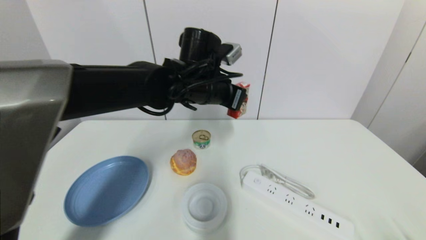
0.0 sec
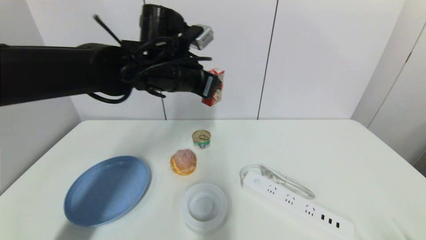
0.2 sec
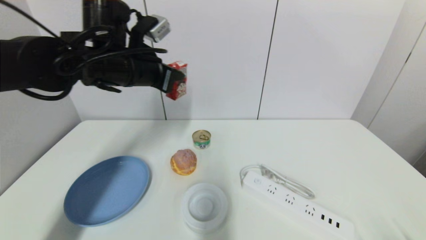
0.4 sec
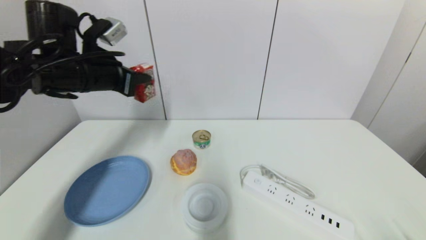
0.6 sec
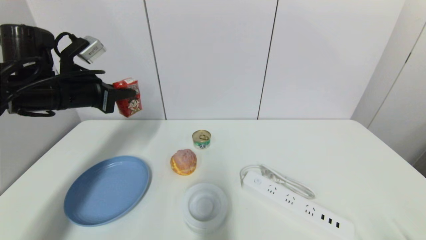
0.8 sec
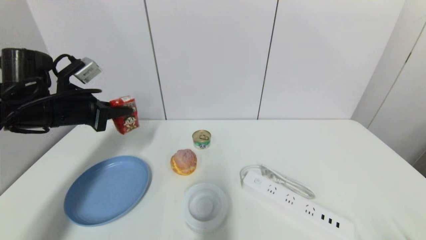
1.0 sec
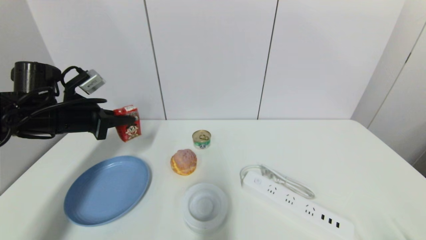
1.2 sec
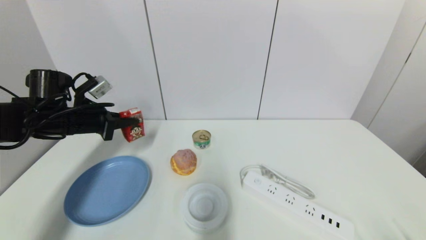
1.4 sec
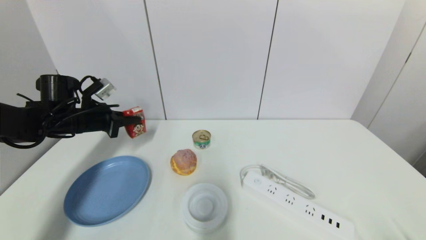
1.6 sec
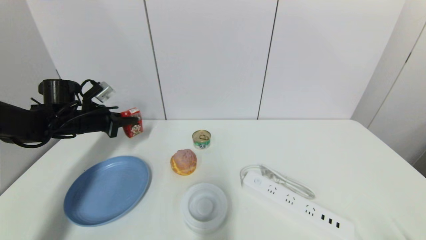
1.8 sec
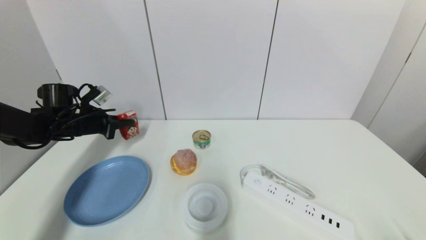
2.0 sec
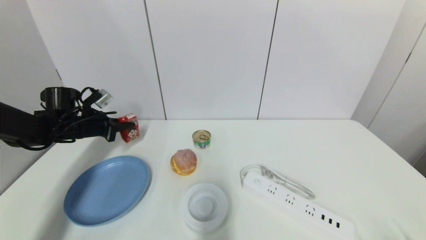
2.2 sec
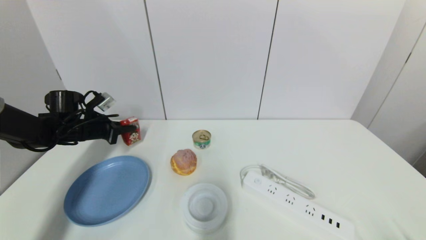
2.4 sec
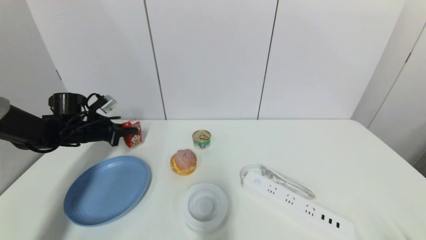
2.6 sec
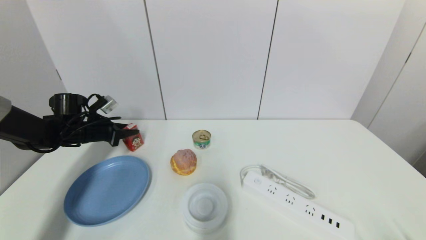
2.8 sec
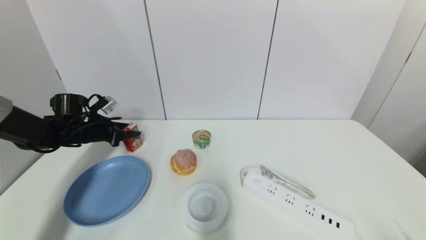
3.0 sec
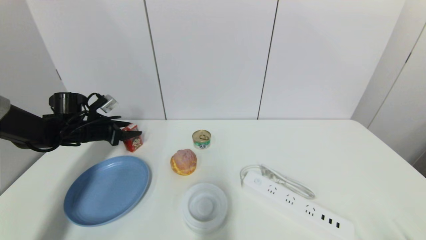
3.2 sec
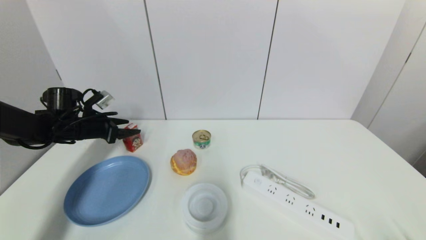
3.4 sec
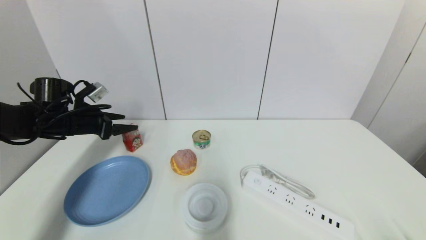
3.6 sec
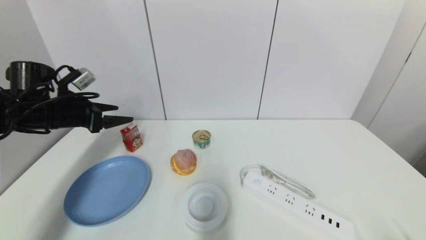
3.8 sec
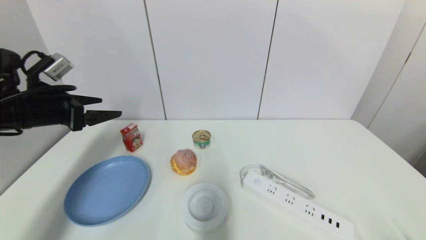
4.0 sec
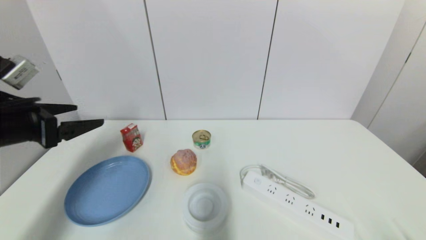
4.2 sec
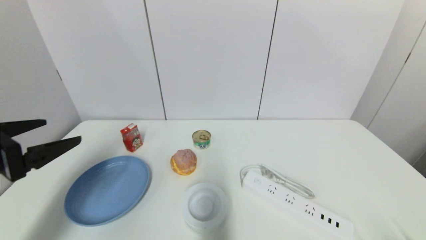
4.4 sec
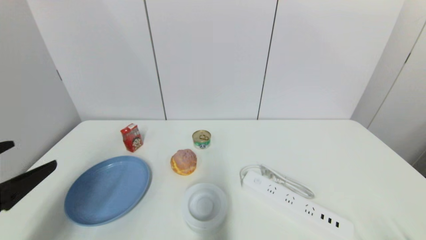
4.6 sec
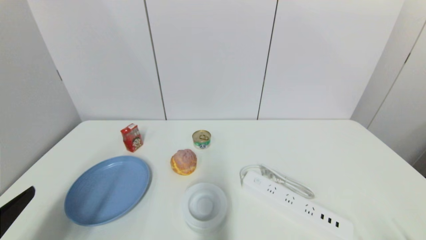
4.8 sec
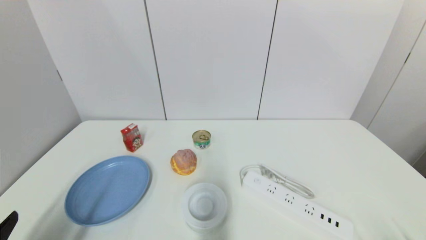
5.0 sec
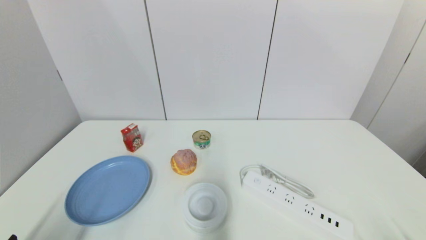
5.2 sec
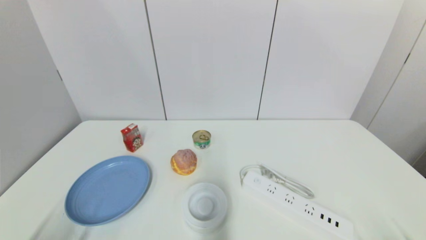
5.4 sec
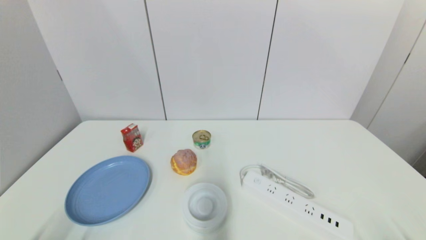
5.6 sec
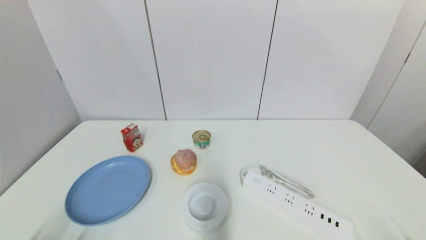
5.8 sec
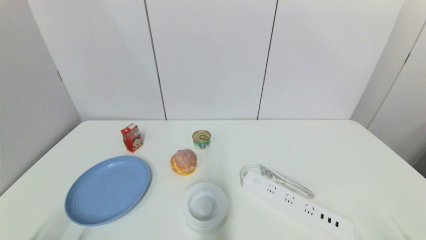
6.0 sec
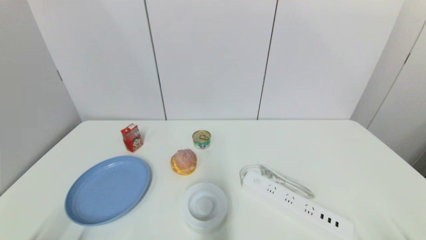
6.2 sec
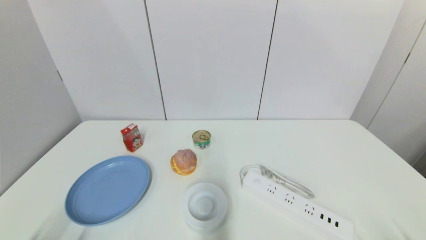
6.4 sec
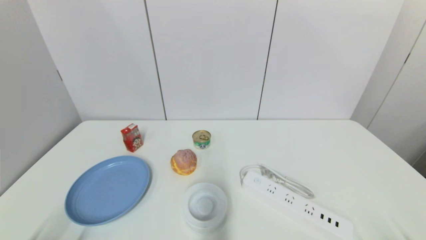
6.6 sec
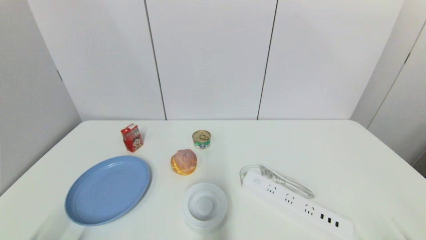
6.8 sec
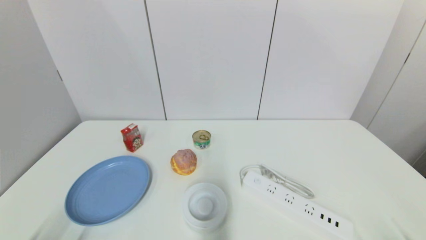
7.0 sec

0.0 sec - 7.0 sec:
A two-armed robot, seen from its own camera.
Step, 0.0 sec - 2.8 sec: Place the wangzai milk on the table with left gripper.
0.0 sec - 1.4 sec: The left gripper moves to the left, roughly 25 cm.
1.4 sec - 2.8 sec: The left gripper is displaced downward and forward by about 10 cm.
2.8 sec - 4.2 sec: The left gripper goes roughly 25 cm backward and upward, and opens its fingers.
4.2 sec - 5.6 sec: The left gripper heads backward and downward, covering roughly 30 cm.

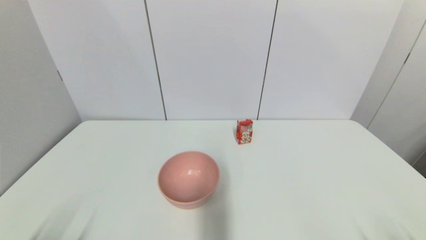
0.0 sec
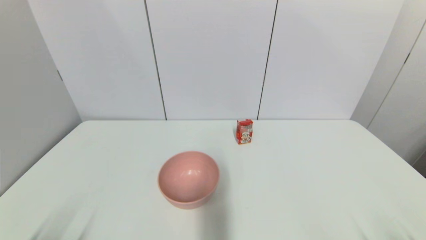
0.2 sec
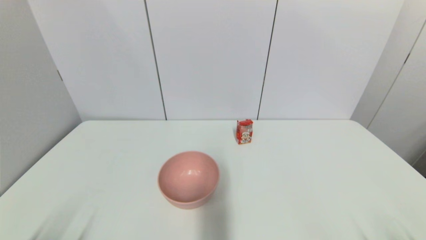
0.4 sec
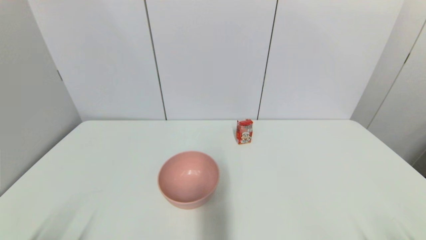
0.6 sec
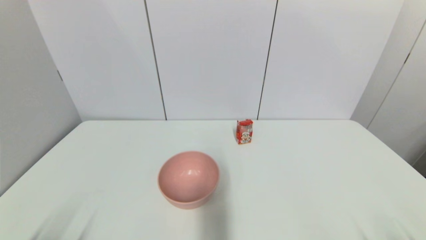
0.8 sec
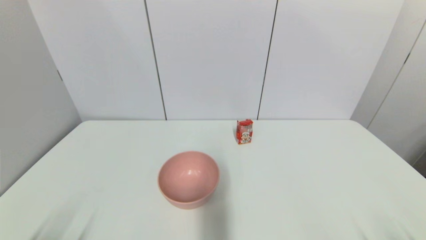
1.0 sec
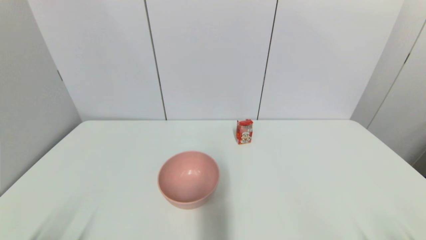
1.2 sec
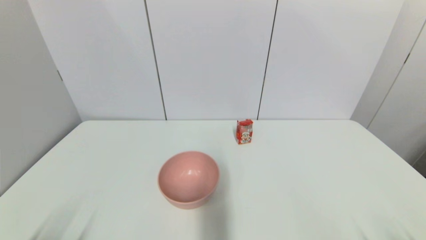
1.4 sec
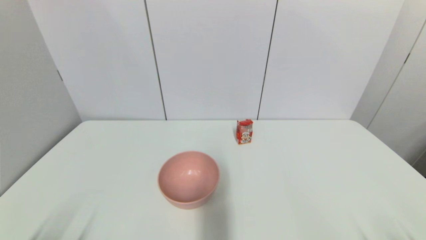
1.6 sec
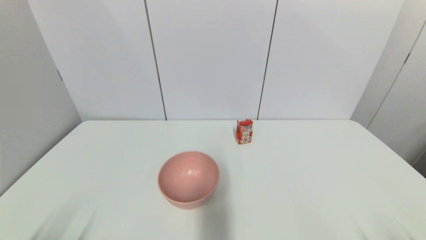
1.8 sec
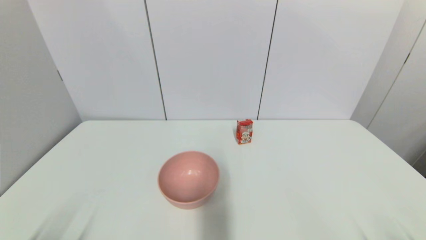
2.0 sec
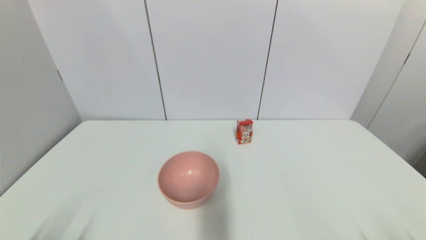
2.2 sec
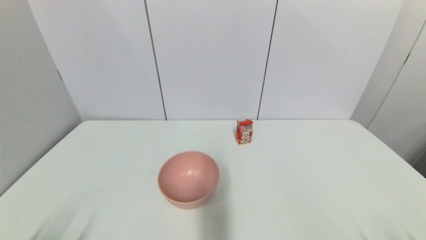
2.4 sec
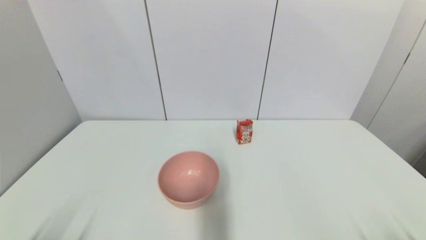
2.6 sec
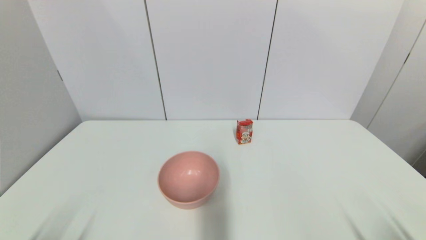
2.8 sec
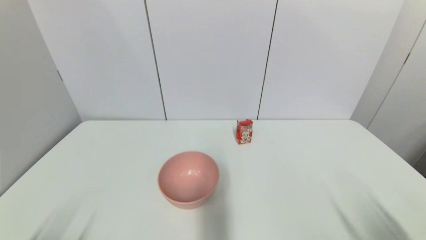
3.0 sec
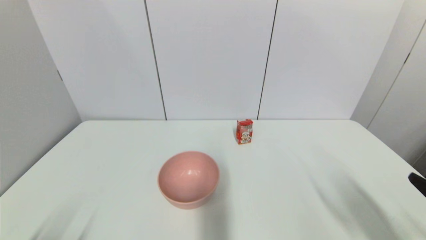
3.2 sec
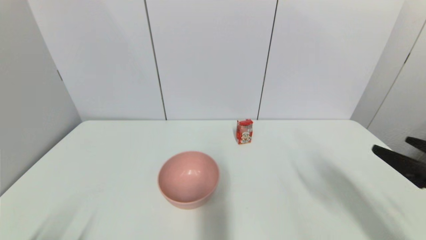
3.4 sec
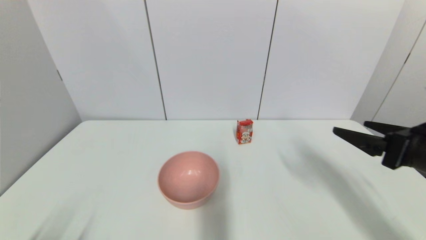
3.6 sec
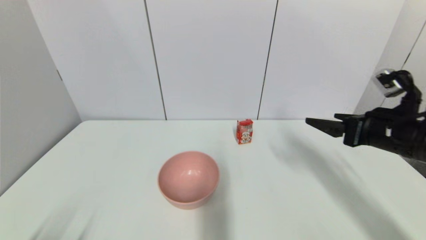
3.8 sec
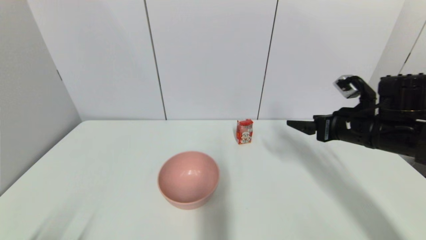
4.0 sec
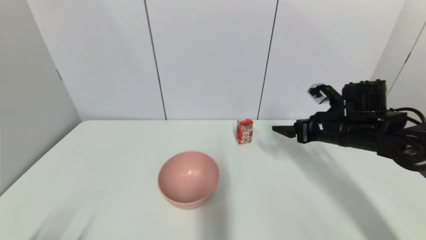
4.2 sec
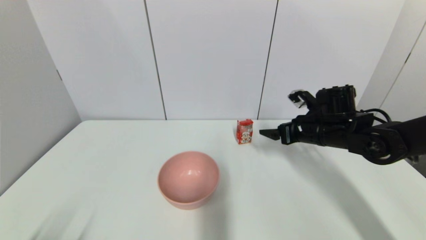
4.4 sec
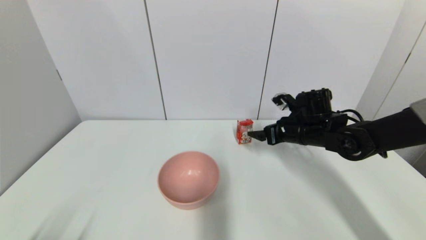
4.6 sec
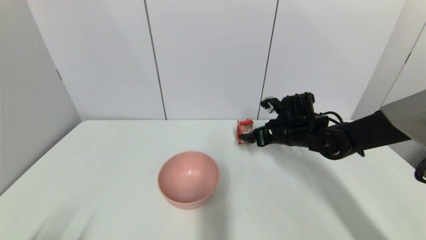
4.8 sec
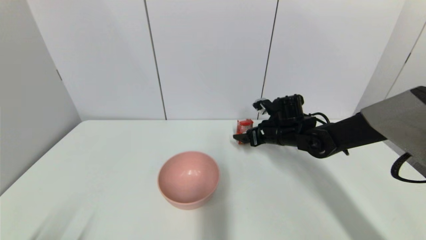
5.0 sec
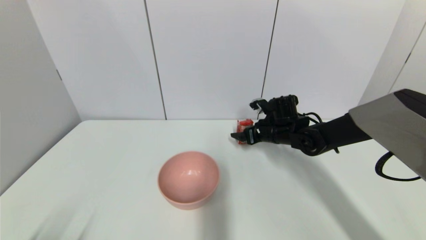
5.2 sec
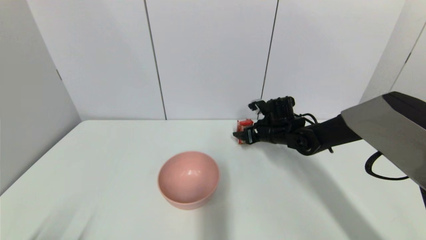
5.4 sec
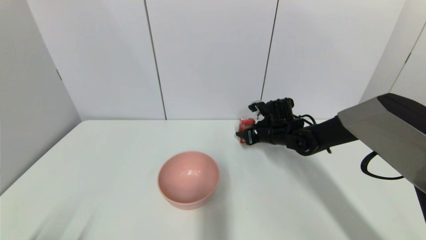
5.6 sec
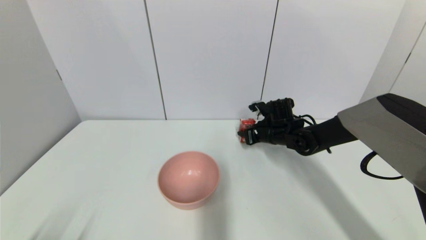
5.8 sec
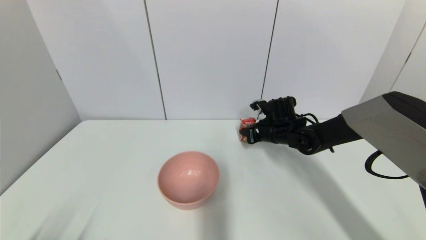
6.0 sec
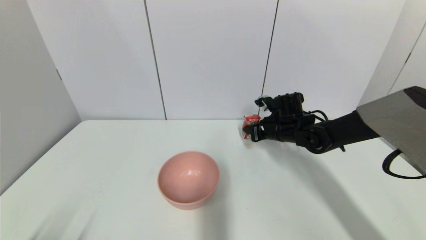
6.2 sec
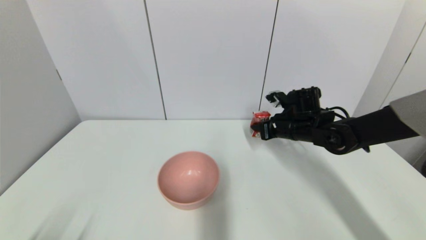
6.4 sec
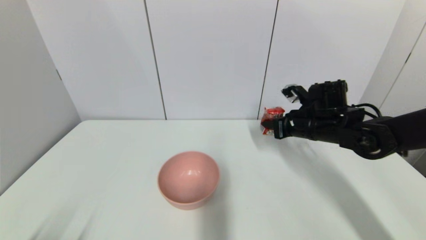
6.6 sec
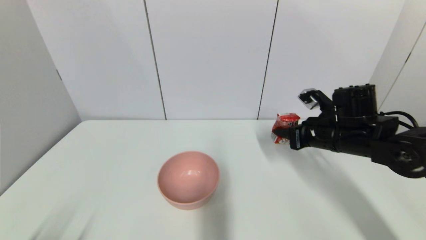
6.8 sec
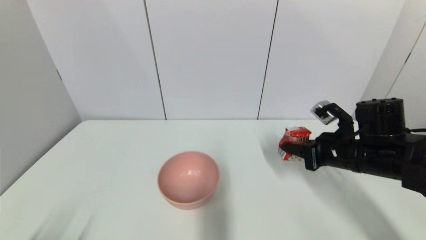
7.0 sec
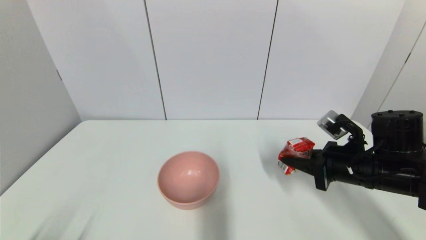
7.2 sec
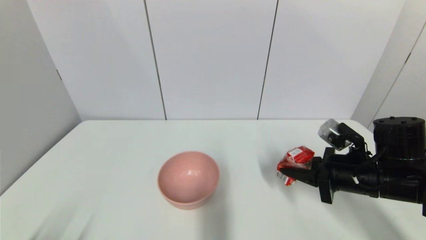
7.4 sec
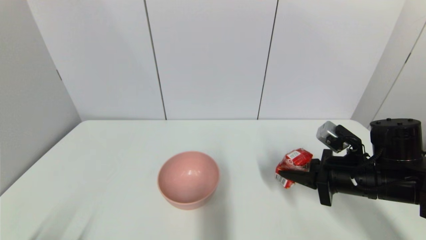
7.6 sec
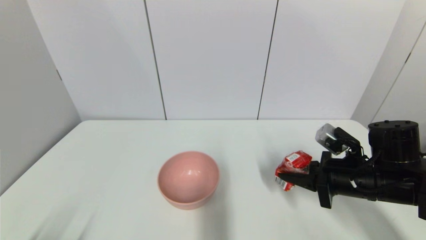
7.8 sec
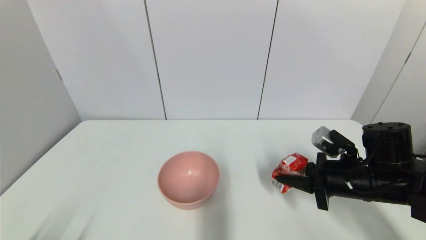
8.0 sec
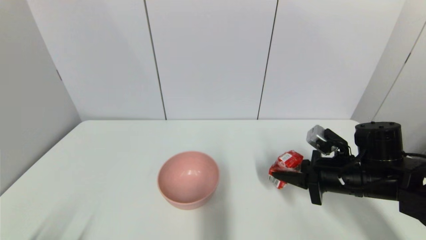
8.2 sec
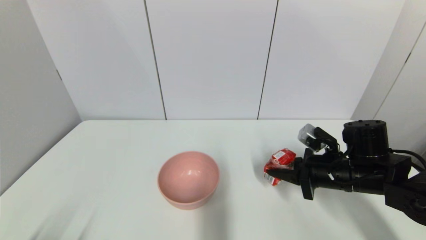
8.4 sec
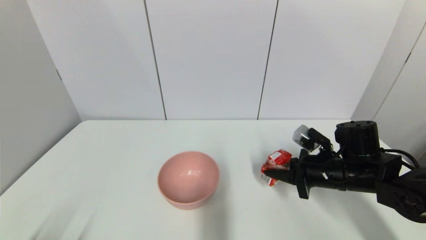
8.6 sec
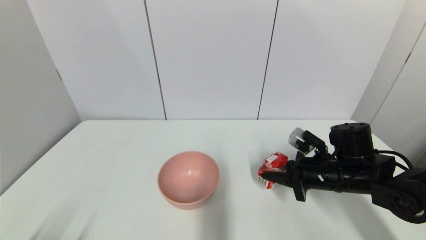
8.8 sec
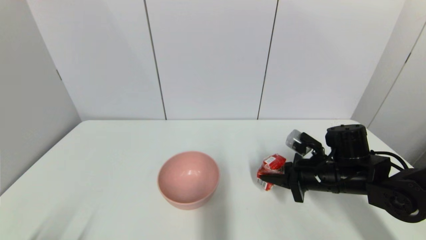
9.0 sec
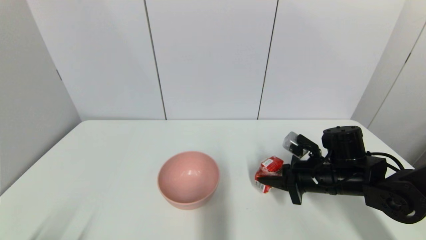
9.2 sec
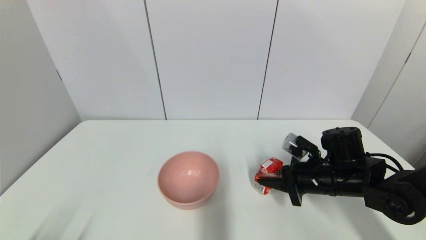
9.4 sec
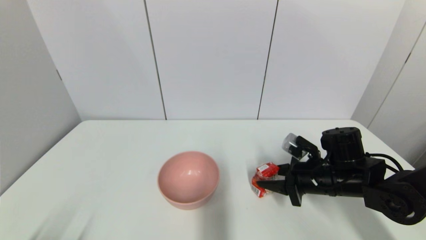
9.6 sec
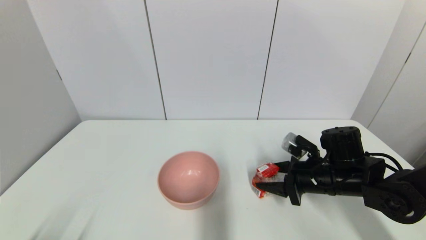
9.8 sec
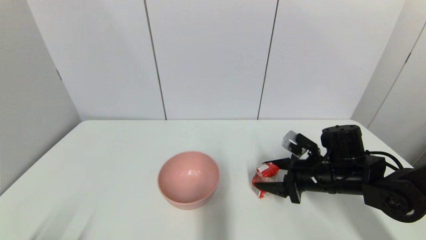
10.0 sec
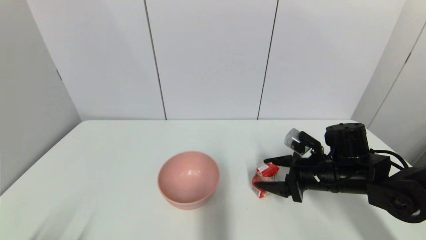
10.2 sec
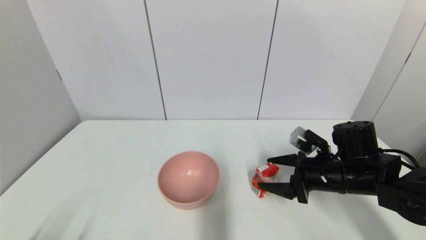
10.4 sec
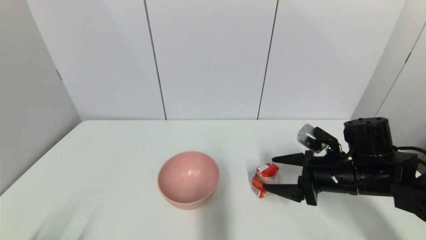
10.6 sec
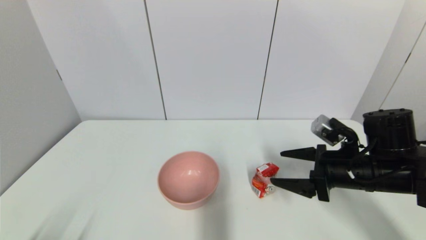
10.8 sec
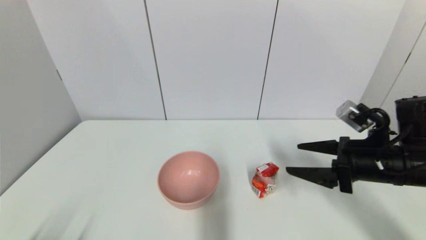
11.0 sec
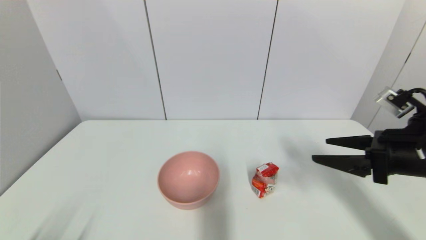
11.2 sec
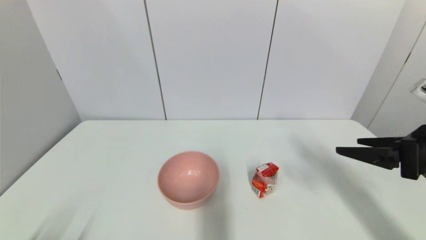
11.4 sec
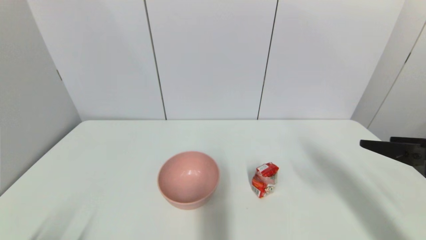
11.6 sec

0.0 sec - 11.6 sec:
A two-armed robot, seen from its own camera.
Step, 3.2 sec - 5.6 sec: Grasp the wangzai milk with right gripper.
Step, 6.0 sec - 9.8 sec: Place the wangzai milk on the table with right gripper.
0.0 sec - 1.4 sec: Neither gripper changes place.
2.8 sec - 4.4 sec: The right gripper moves forward, about 35 cm.
4.4 sec - 5.8 sec: The right gripper heads forward, downward and to the left, covering about 10 cm, and closes.
5.8 sec - 7.2 sec: The right gripper travels backward and to the right by some 20 cm.
7.2 sec - 8.8 sec: The right gripper ends up about 5 cm from where it was.
8.8 sec - 10.2 sec: The right gripper opens up.
10.2 sec - 11.6 sec: The right gripper moves upward, backward and to the right, about 20 cm.
